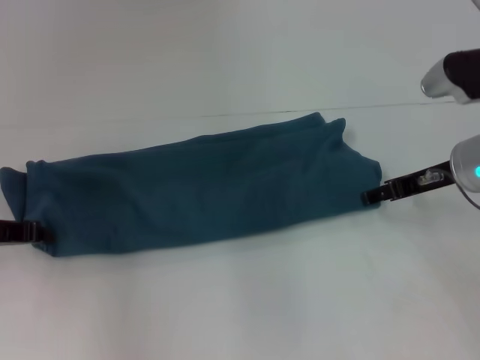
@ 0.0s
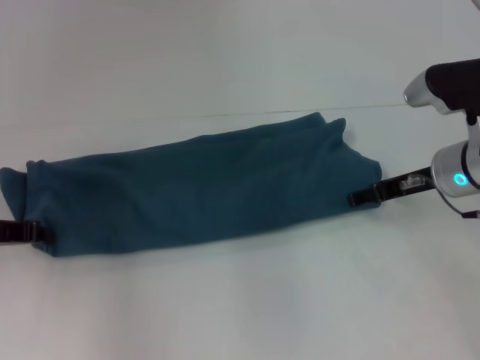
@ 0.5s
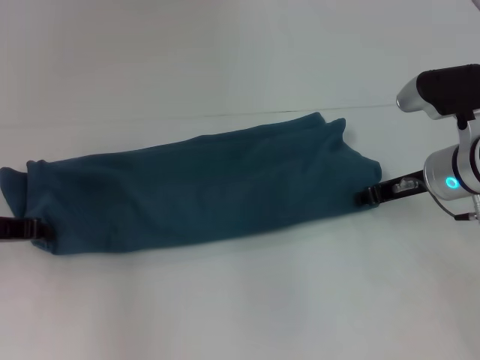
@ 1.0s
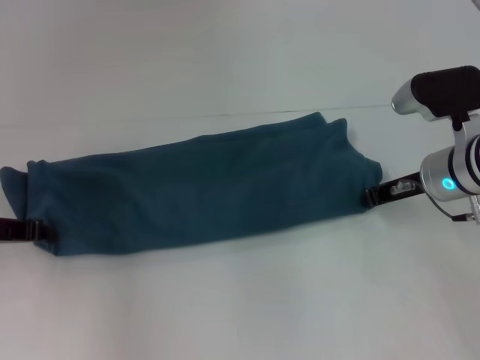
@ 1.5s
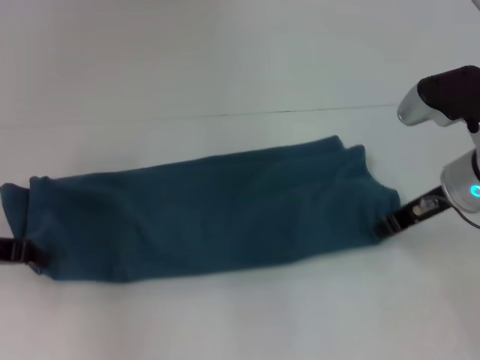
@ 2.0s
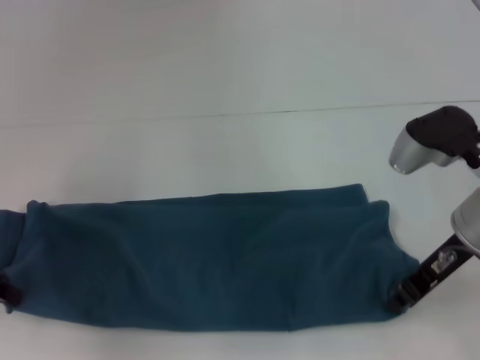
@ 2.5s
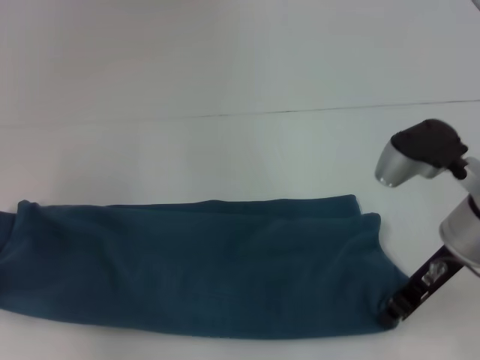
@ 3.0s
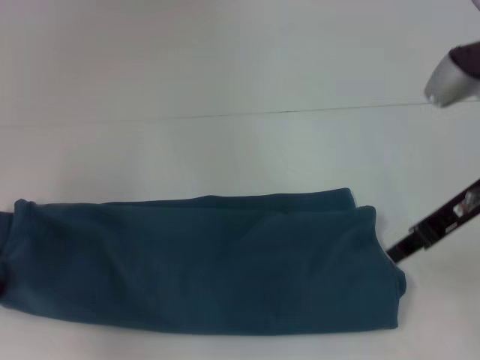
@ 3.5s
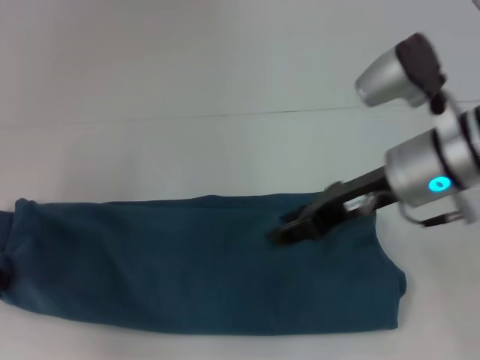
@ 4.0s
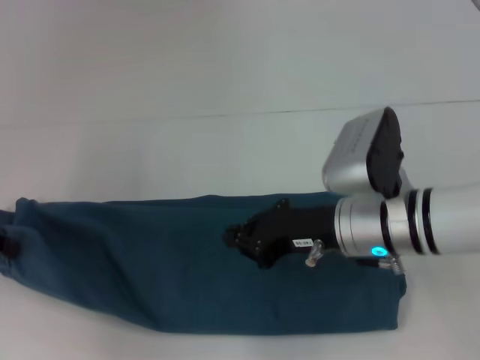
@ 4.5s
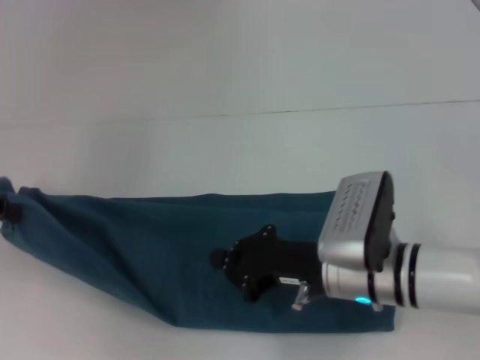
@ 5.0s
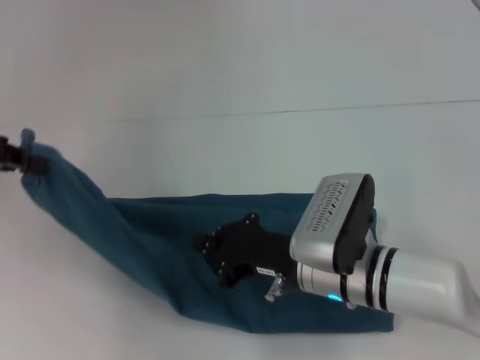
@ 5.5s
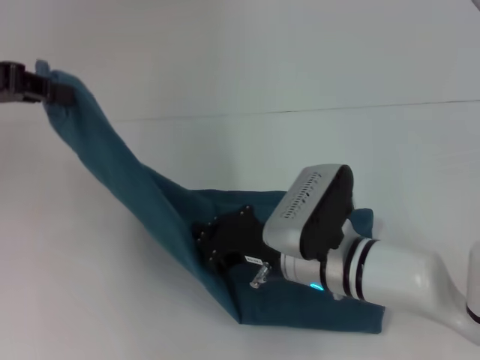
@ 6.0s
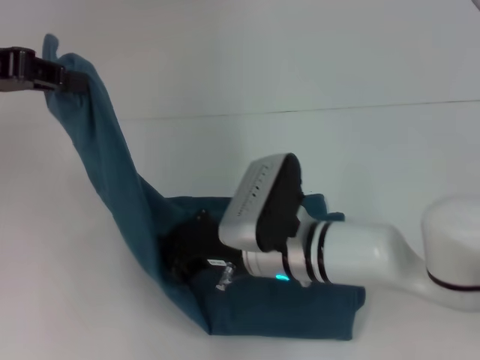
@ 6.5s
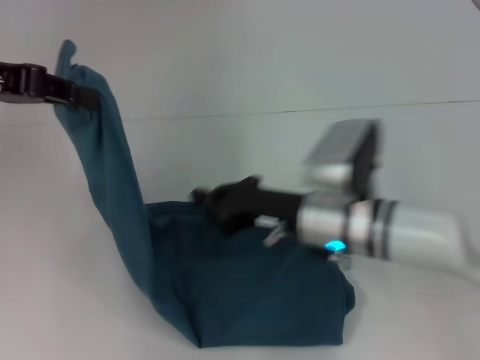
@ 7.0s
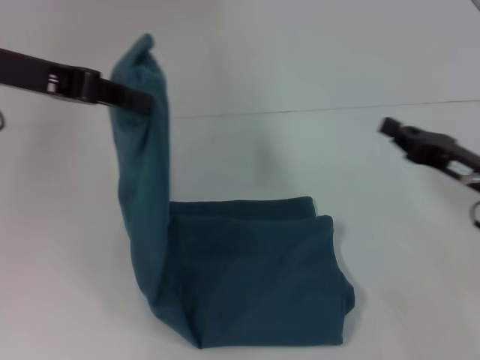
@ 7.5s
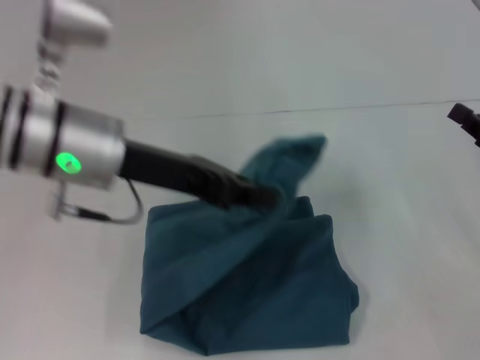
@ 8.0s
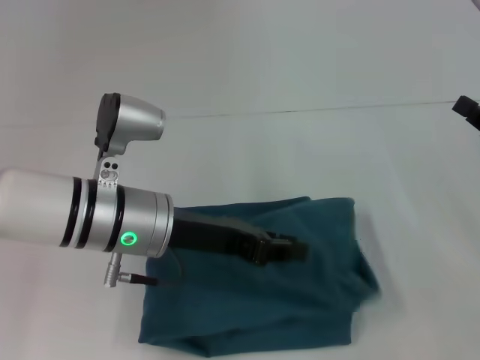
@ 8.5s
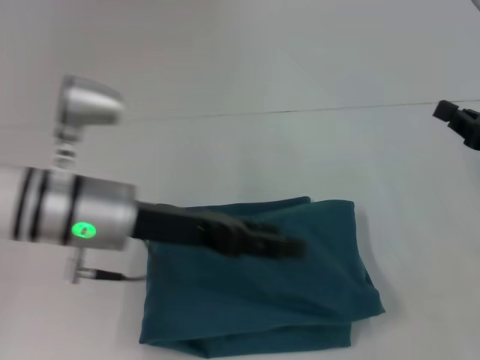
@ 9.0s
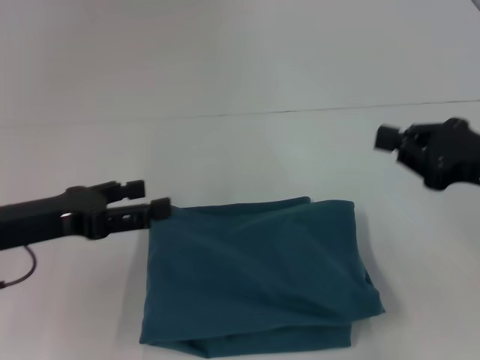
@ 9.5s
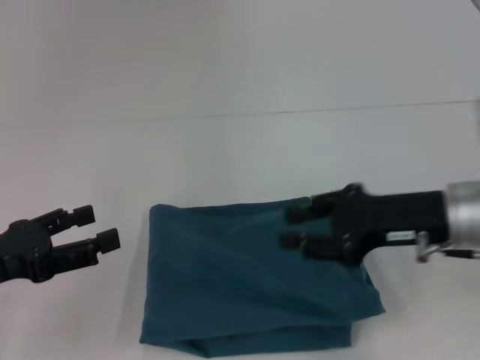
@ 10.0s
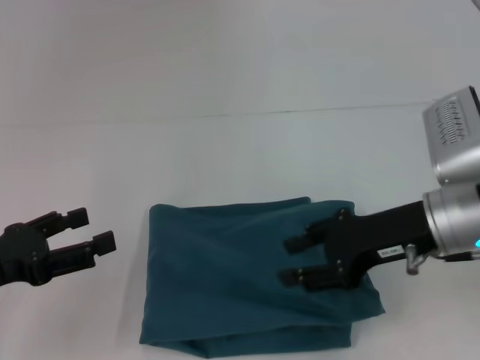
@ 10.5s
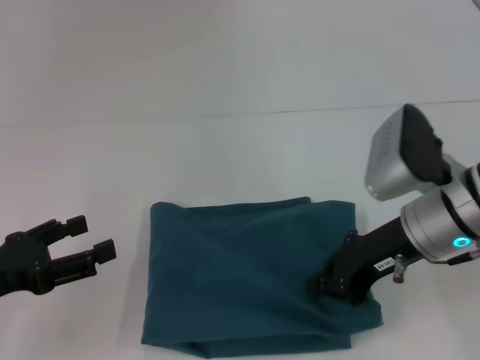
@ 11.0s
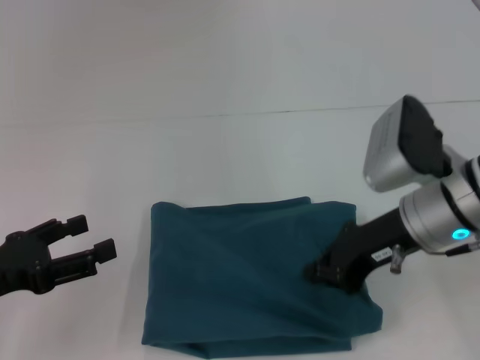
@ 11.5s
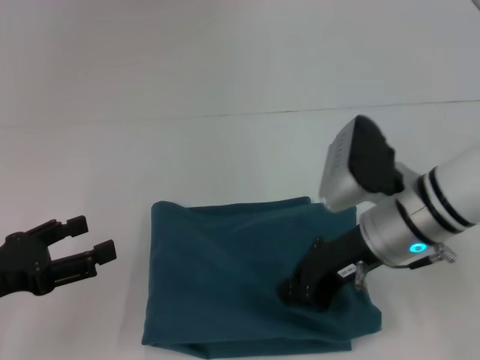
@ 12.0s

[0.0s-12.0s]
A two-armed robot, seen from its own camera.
Step, 0.0s to 6.5s: Press the middle of the clothes with your right hand.
Step, 7.0s to 8.5s: Fold the clothes to the left.
0.0s to 2.0s: The right gripper closes its fingers.
2.0s to 4.0s: The right gripper travels to the left by approximately 5 cm, and opens up.
4.0s to 6.0s: The right gripper is displaced downward and to the left by about 15 cm, and closes; the left gripper goes about 15 cm upward and forward.
6.0s to 8.0s: The left gripper goes approximately 15 cm to the right, while the right gripper heads to the right, covering roughly 25 cm.
8.0s to 10.0s: The right gripper moves to the left, approximately 10 cm, while the left gripper heads to the left, downward and backward, covering roughly 20 cm, and opens up.
10.0s to 12.0s: The right gripper travels to the left by about 5 cm, and opens, then closes again.

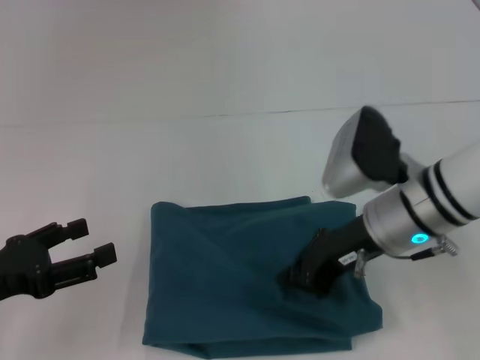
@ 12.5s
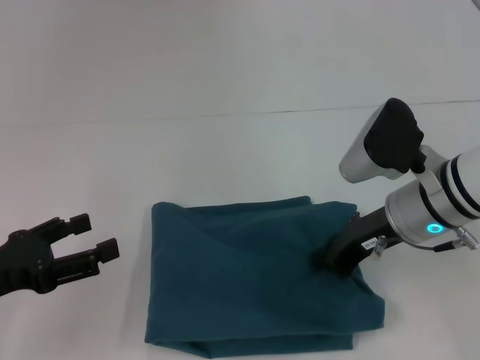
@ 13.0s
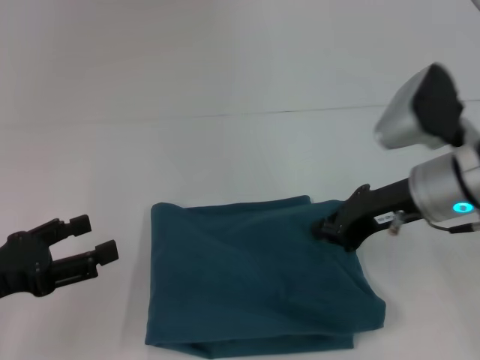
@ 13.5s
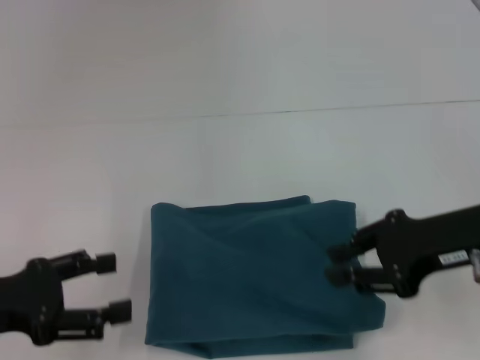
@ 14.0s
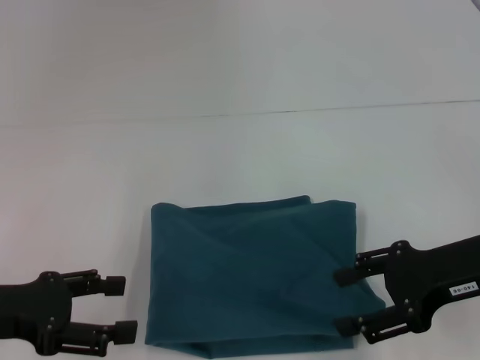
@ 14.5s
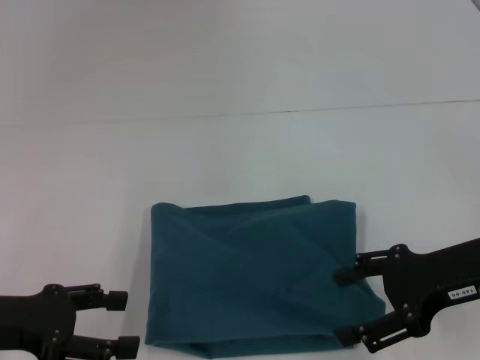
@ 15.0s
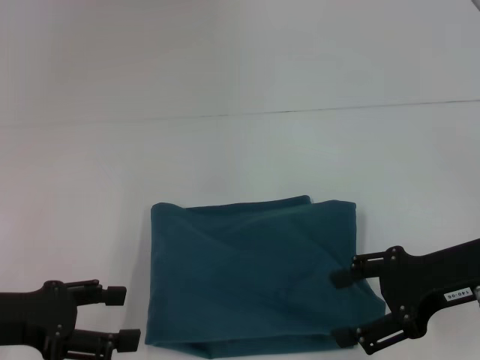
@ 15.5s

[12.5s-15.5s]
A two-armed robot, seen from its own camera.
12.5s to 14.0s: The right gripper shifts approximately 10 cm to the right.
14.0s to 15.5s: The right gripper opens.

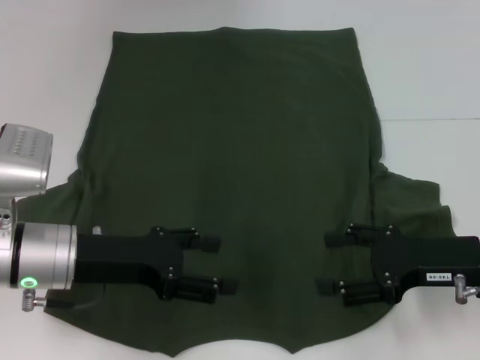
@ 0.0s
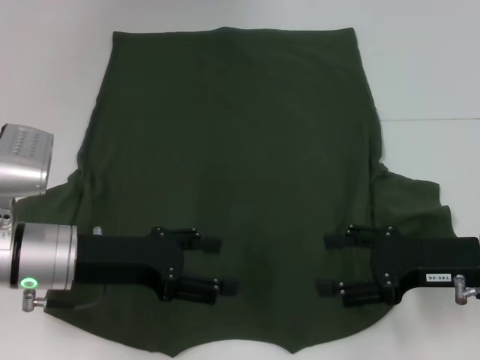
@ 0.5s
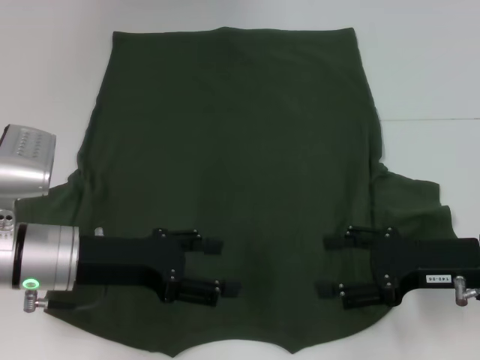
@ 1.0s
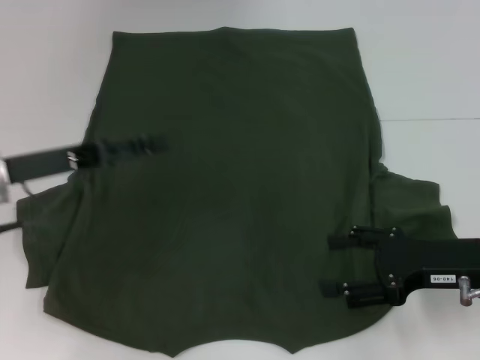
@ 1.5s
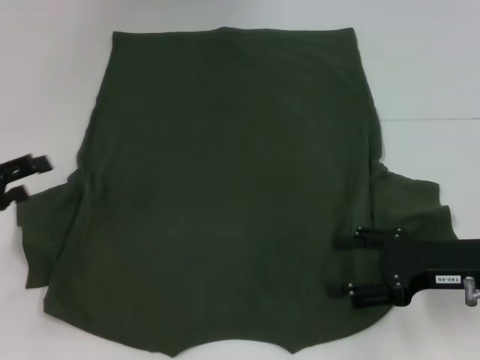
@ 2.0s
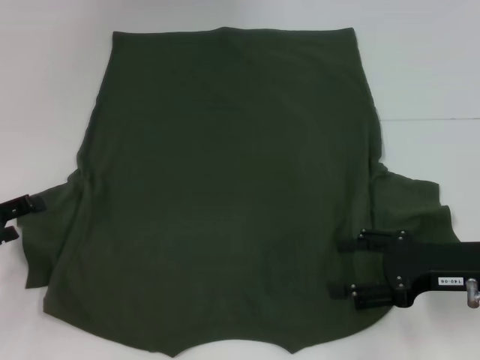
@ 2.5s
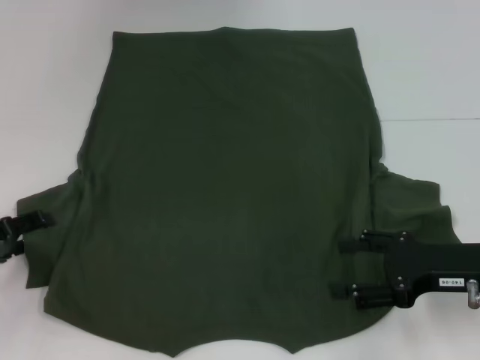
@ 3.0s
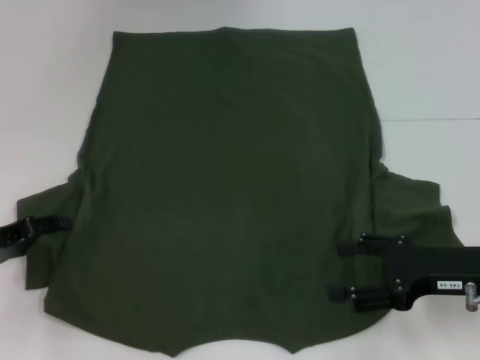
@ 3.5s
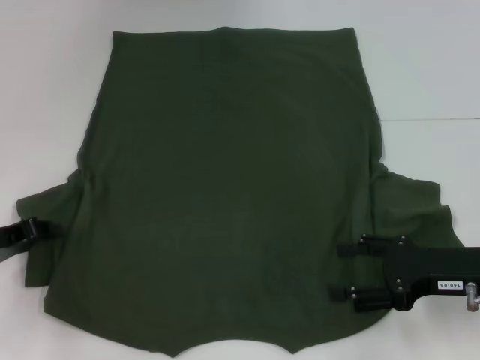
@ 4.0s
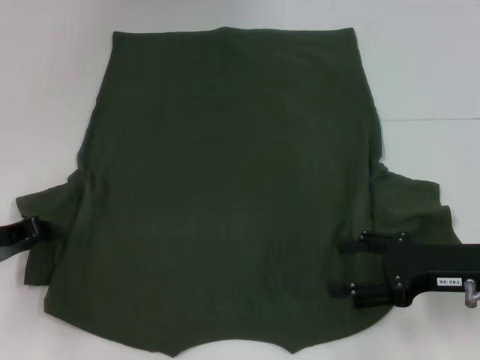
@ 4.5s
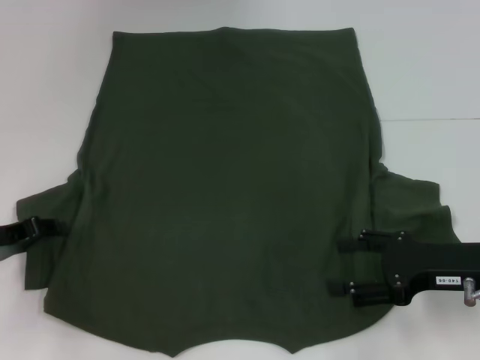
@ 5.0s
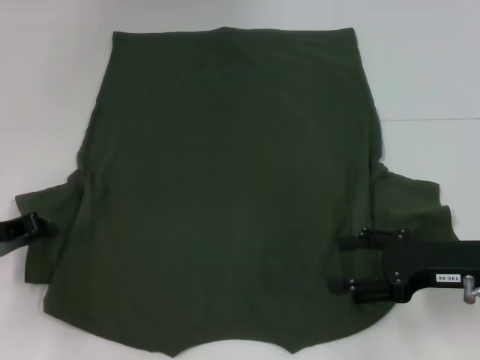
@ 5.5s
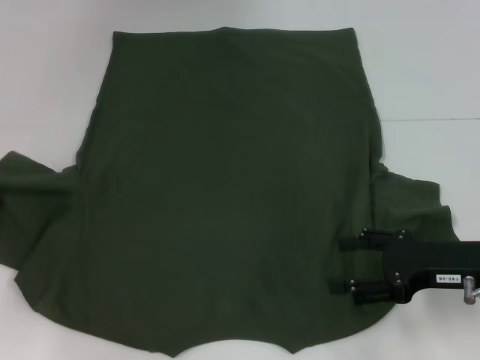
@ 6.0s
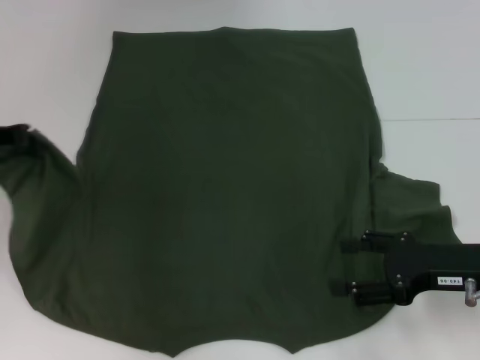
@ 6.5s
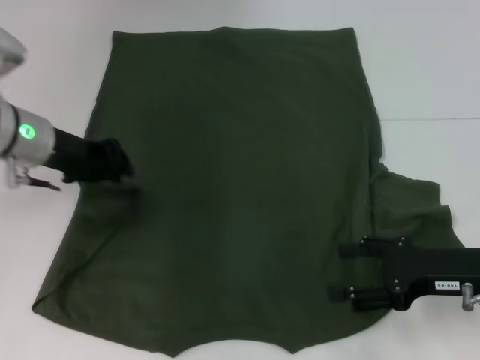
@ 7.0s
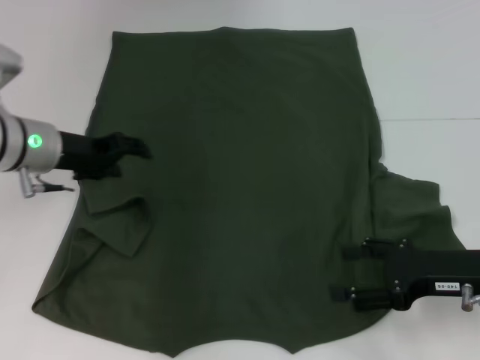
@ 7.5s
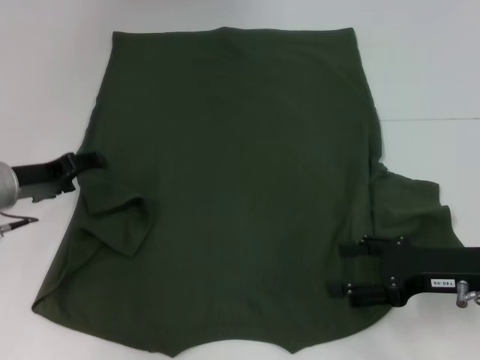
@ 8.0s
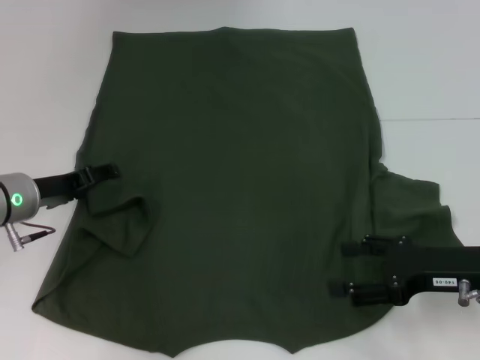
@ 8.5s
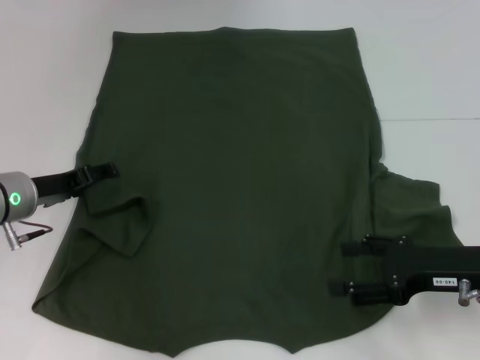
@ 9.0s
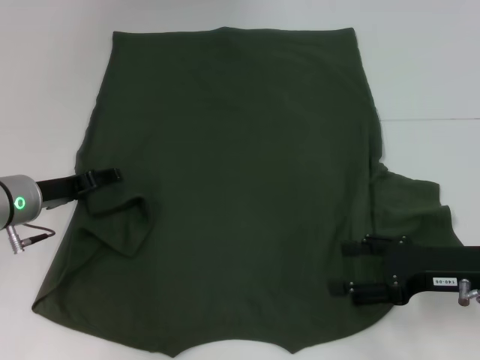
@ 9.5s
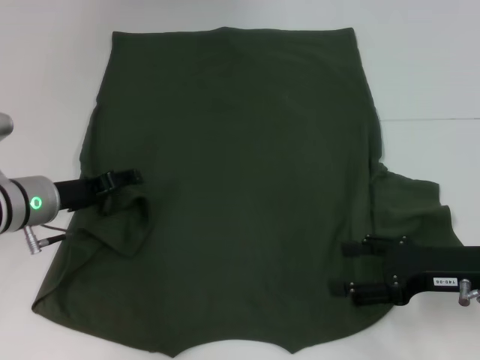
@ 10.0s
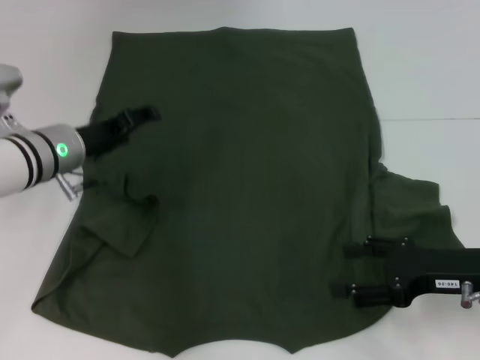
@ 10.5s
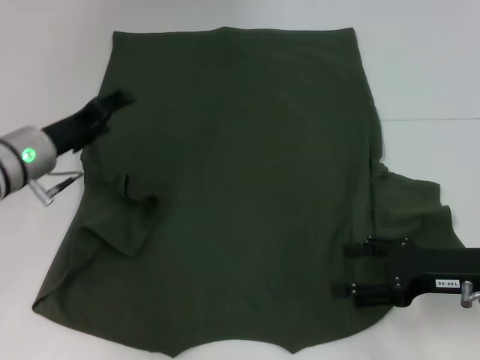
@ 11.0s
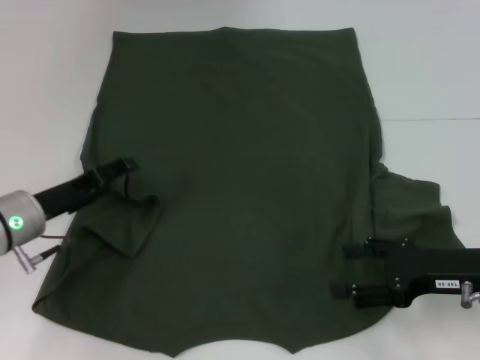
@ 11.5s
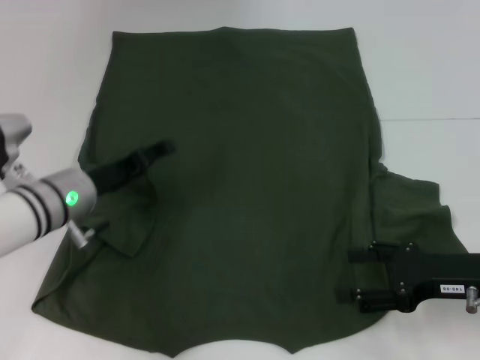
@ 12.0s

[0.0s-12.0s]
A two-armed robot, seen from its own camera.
0.0s to 2.0s: The left gripper shifts about 15 cm to the left.
2.0s to 4.0s: The left gripper travels downward by approximately 5 cm, and closes its fingers.
4.0s to 6.0s: The left gripper ends up about 5 cm from where it was, and closes its fingers.
6.0s to 8.0s: The left gripper goes approximately 10 cm to the right, and opens its fingers.
8.0s to 10.0s: The grippers move only a little.
